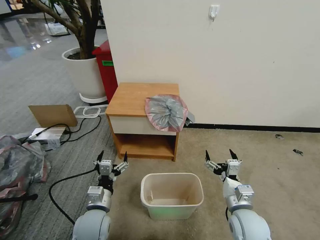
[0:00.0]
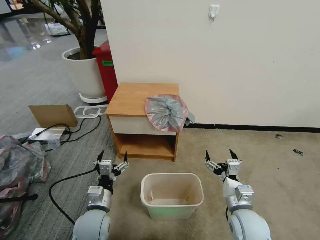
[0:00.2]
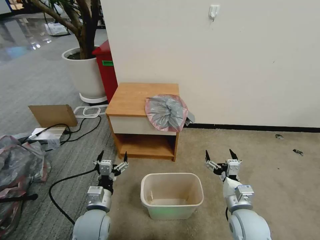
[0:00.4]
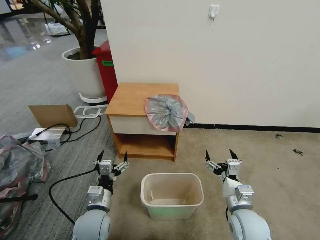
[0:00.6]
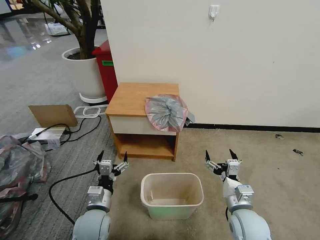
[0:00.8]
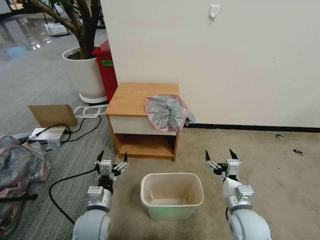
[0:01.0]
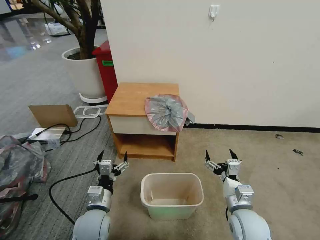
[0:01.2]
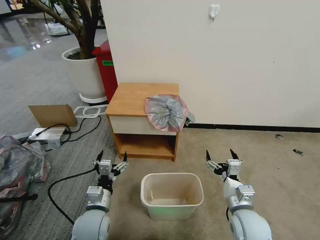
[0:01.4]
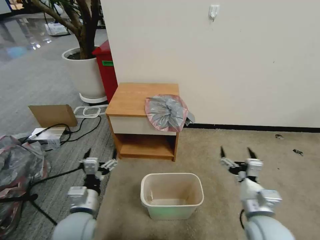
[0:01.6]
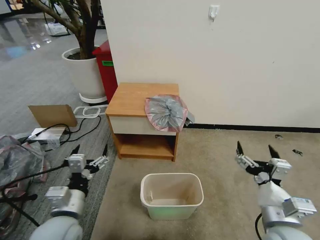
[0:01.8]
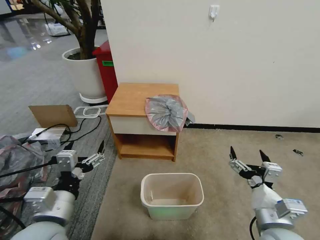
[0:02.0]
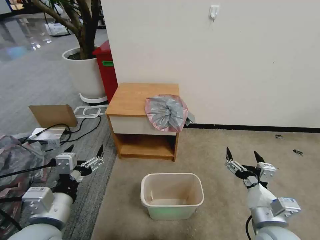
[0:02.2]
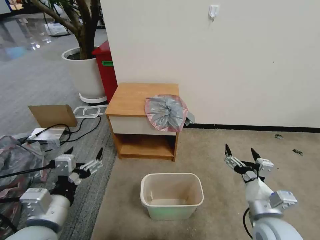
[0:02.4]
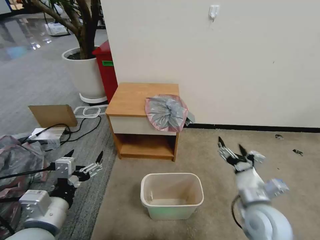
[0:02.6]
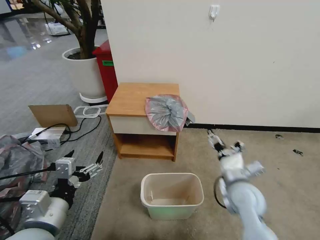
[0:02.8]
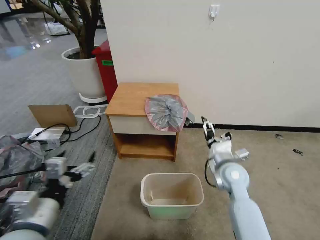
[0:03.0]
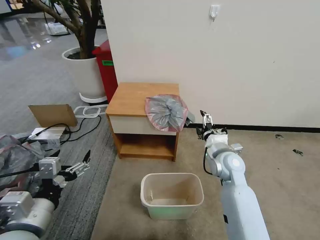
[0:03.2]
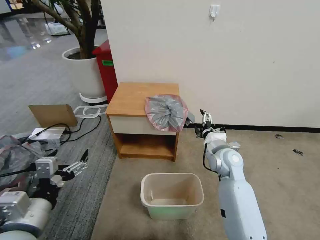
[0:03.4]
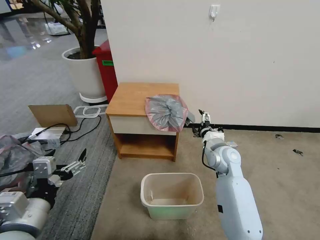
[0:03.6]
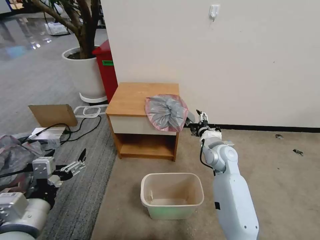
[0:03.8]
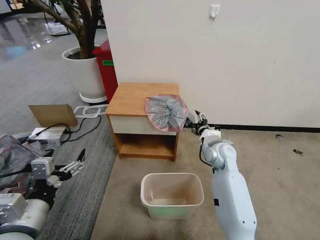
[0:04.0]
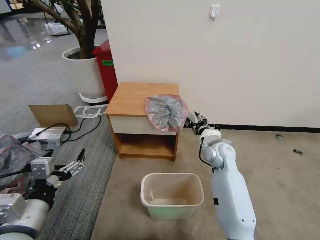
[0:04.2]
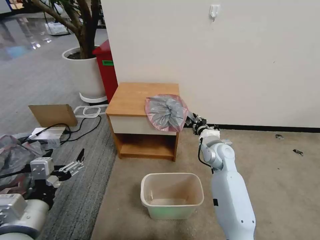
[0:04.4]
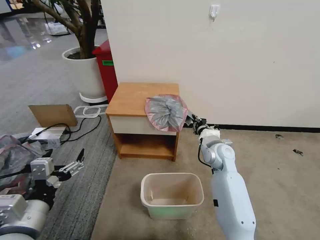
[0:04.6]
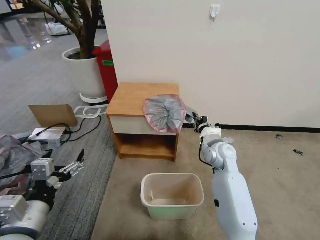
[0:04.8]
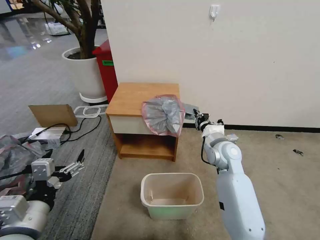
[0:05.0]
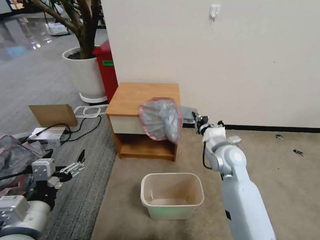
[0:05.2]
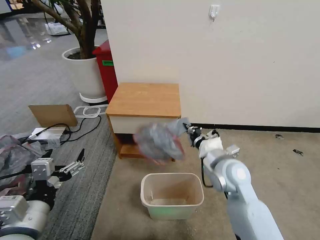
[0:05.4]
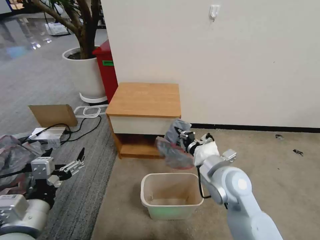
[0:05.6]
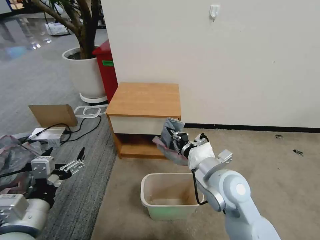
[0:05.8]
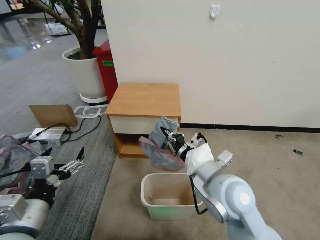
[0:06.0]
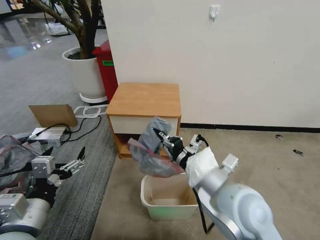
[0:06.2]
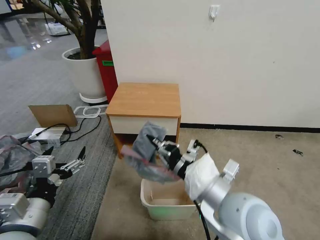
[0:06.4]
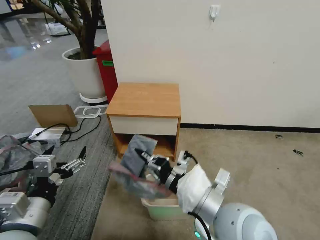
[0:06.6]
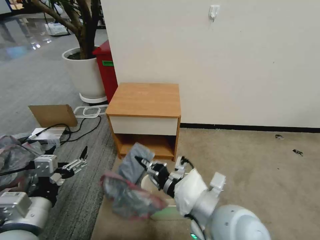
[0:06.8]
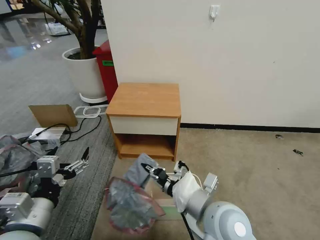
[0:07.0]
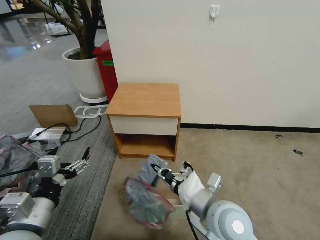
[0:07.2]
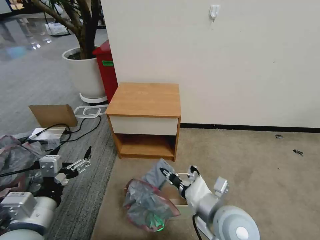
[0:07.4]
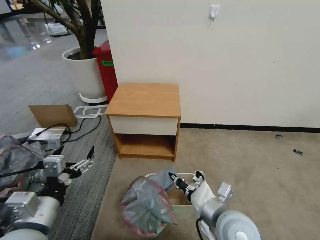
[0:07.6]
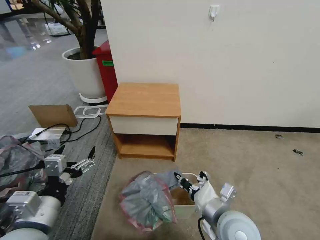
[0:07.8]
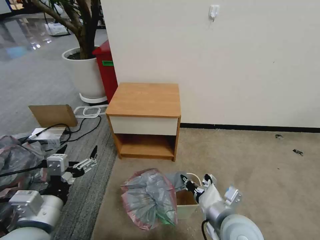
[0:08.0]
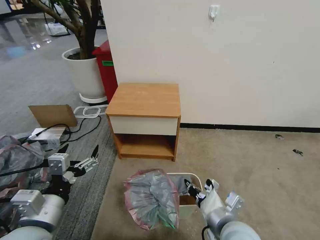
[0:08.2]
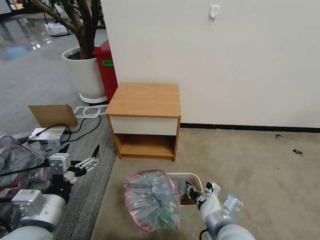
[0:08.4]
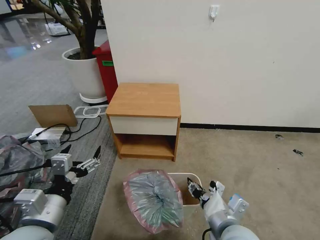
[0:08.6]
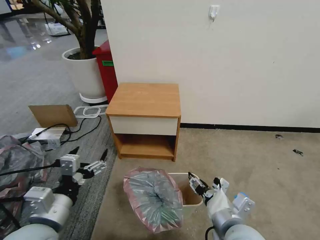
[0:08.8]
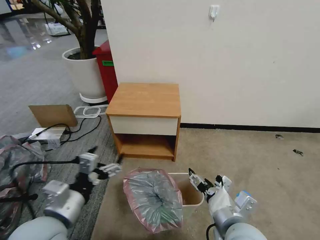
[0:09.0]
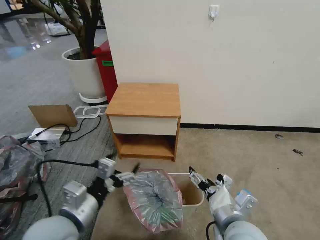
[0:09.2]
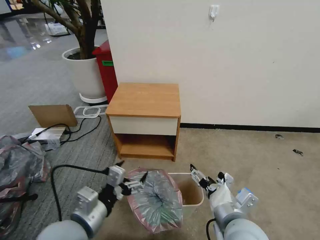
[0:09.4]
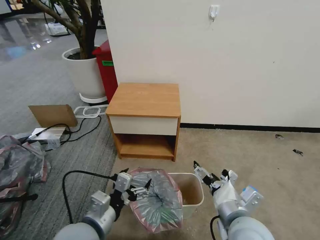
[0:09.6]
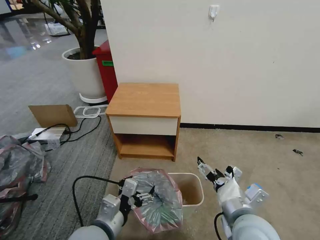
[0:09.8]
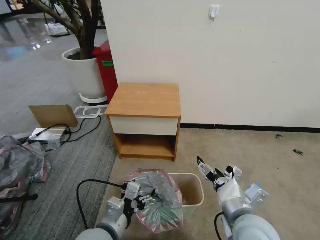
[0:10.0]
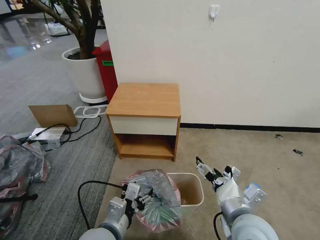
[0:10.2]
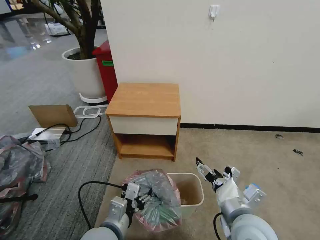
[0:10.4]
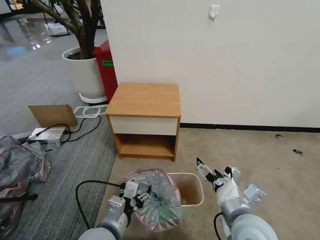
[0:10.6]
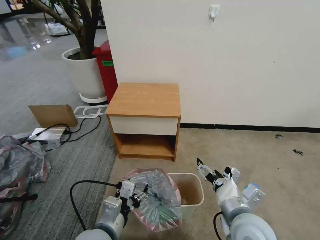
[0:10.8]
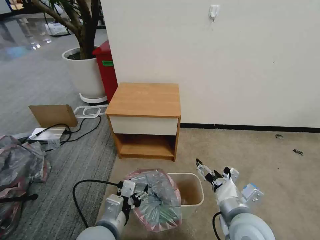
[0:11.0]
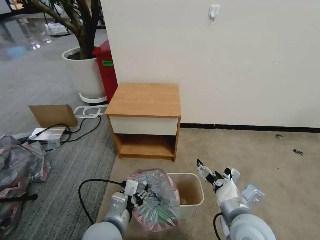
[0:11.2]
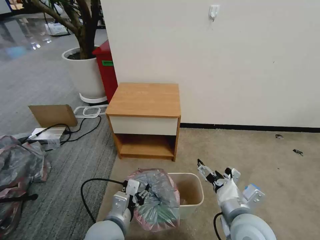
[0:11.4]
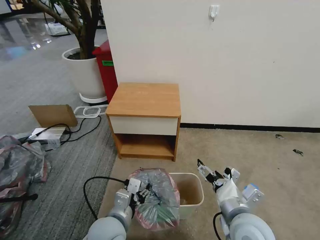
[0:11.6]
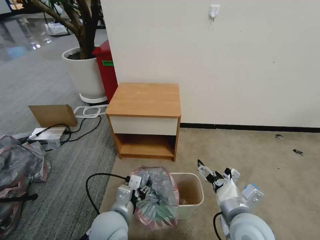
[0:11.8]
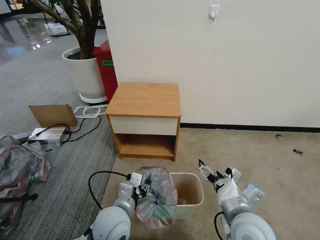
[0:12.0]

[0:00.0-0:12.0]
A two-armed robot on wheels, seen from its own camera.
Task of the whole recording: Pick up the garbage bag from the table and place it over the trash can.
0:01.6 to 0:03.0: The left gripper goes roughly 15 cm upward and backward. The right gripper heads forward, covering some 15 cm.
0:03.0 to 0:04.4: The right gripper moves forward, some 10 cm, and closes.
0:04.4 to 0:06.0: The right gripper goes approximately 20 cm backward and upward.
0:06.0 to 0:07.6: The right gripper goes roughly 10 cm downward and backward.
0:07.6 to 0:09.0: The right gripper opens its fingers.
0:09.0 to 0:10.4: The left gripper travels to the right and downward by about 15 cm.
0:10.4 to 0:12.0: The left gripper shifts roughly 5 cm forward.

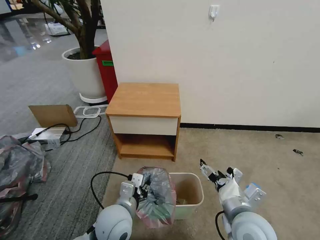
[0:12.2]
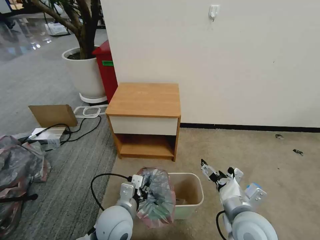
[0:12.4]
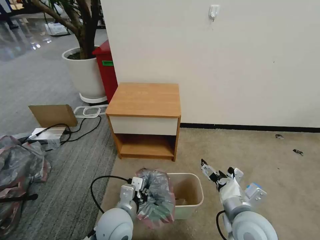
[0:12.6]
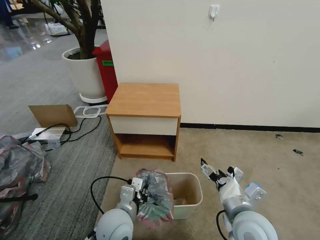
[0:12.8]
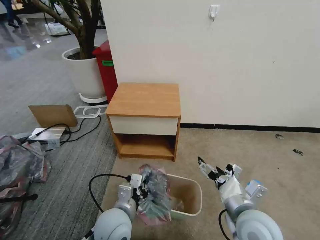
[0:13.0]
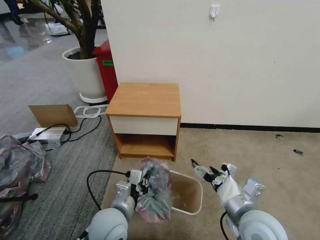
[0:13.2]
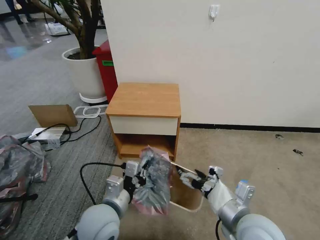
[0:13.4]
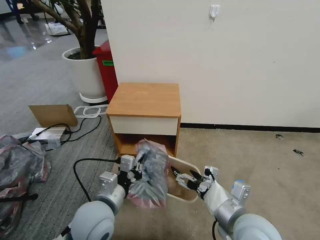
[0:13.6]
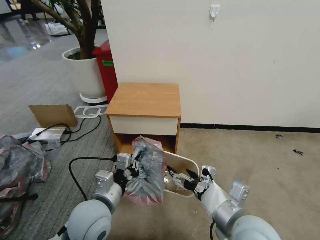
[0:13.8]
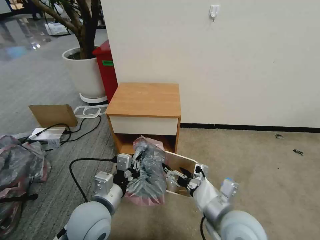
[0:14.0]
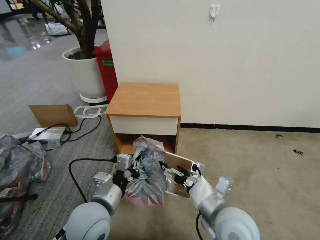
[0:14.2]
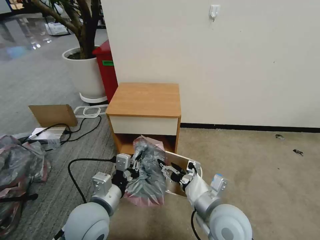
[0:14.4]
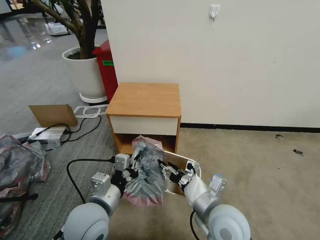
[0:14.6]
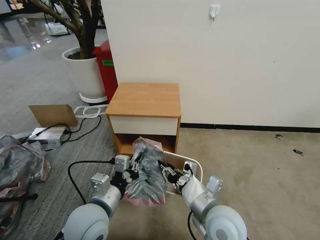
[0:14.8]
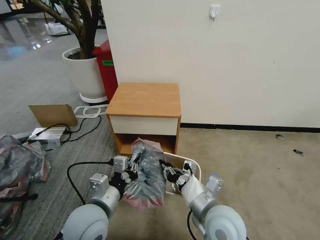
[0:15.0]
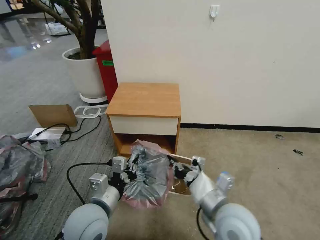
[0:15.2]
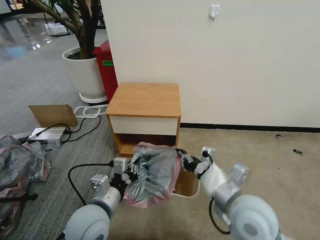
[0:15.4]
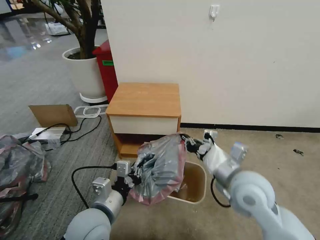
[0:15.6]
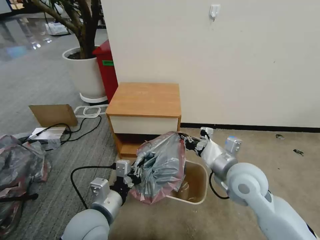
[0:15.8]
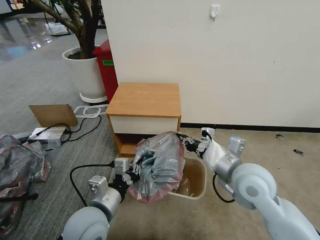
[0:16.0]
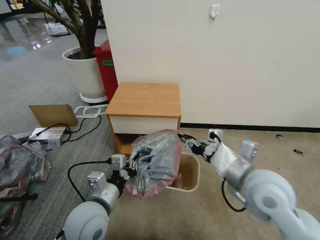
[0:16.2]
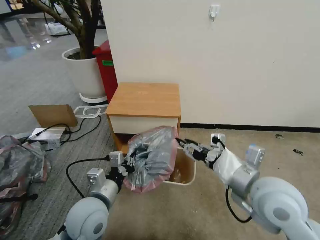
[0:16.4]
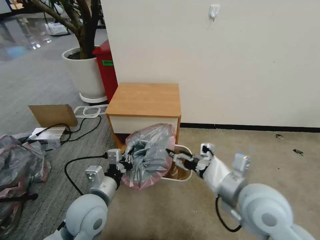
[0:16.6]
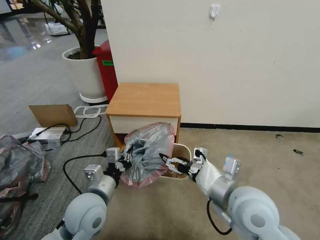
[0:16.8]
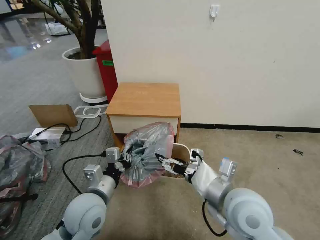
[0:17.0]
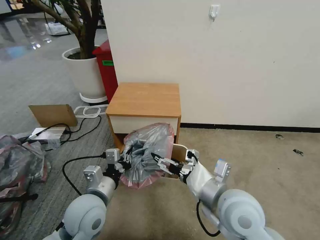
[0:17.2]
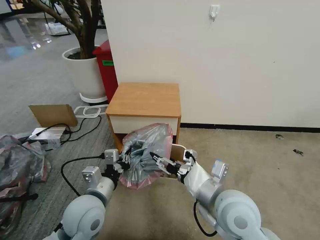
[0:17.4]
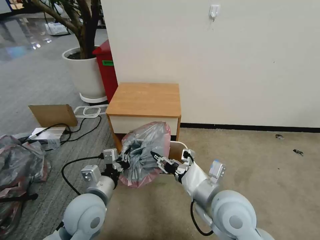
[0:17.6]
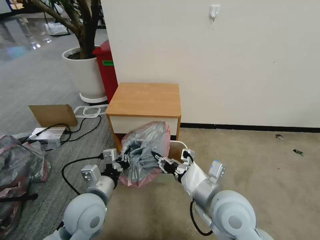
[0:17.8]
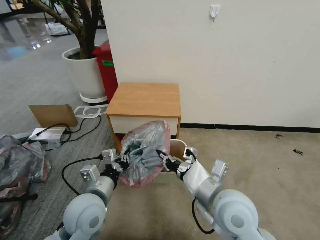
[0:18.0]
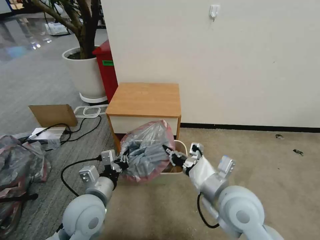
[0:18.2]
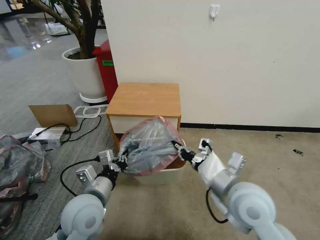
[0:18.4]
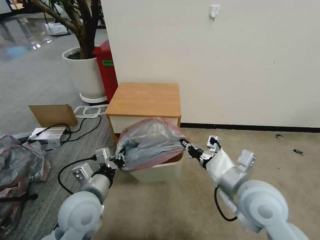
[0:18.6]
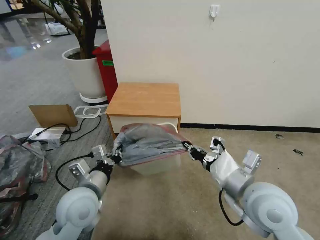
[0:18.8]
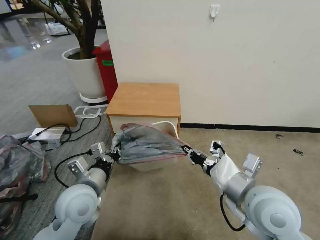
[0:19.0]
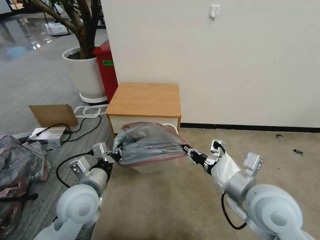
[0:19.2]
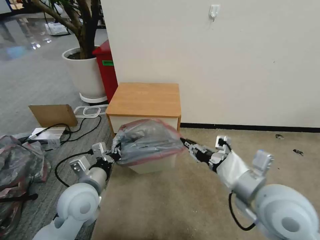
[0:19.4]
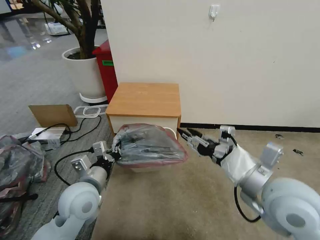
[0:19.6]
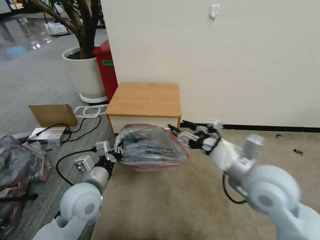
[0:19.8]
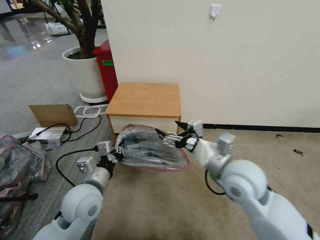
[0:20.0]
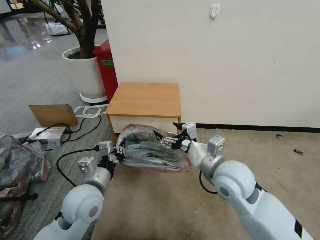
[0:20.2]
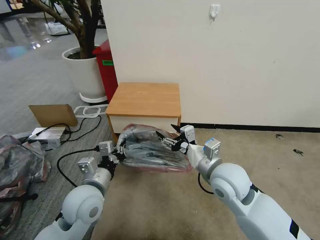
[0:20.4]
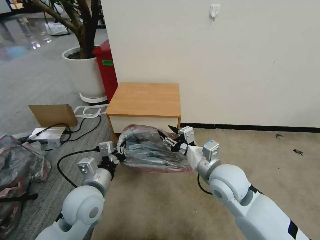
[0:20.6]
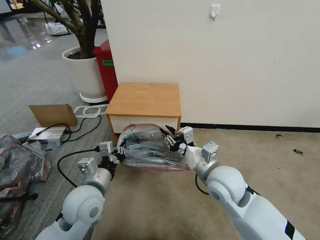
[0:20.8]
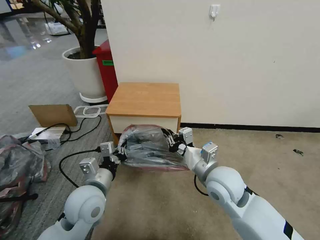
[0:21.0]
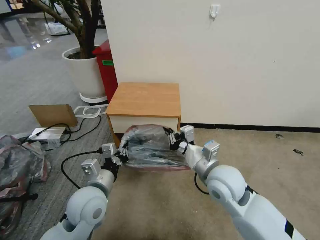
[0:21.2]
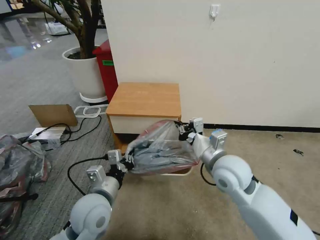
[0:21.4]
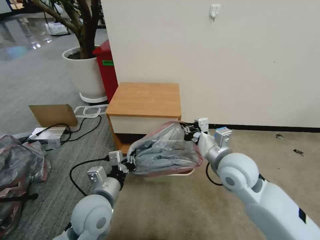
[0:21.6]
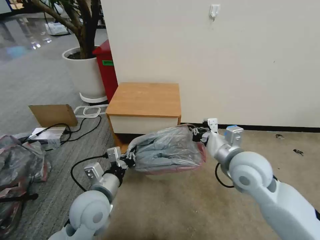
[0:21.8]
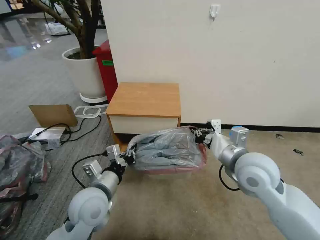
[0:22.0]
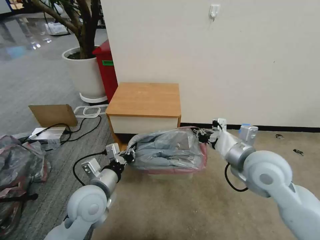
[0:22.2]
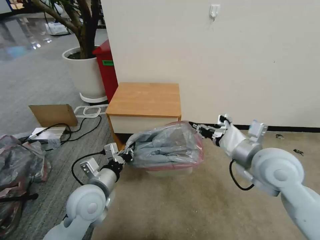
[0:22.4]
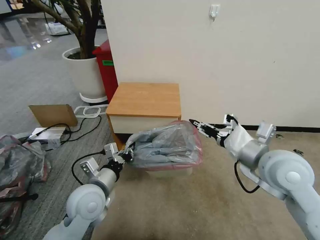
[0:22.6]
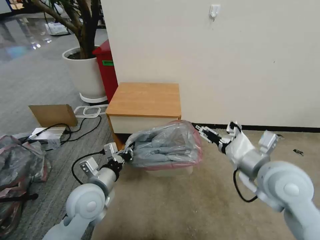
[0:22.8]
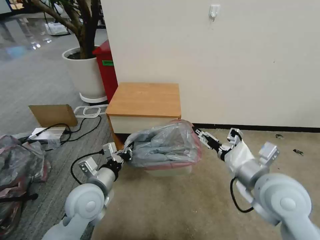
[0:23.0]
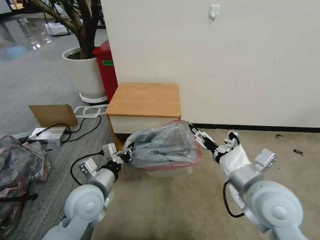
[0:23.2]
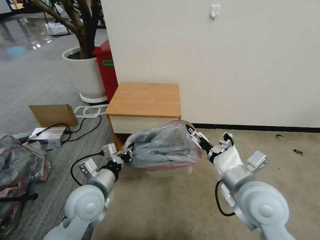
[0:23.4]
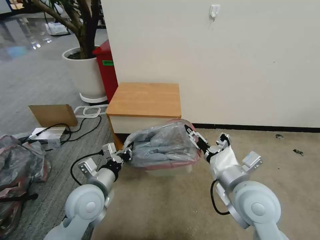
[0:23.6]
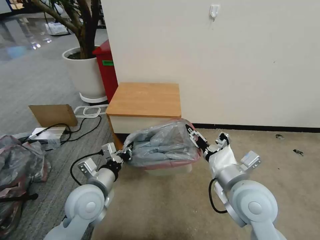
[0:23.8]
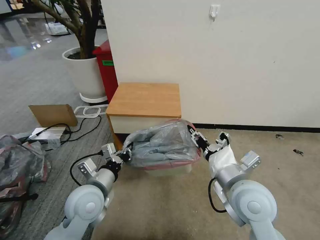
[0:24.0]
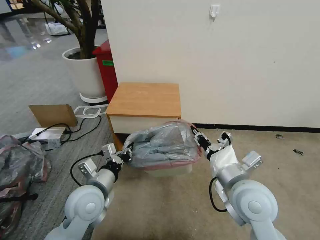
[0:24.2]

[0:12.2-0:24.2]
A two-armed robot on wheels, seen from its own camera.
Task of the whole recording: Pick up the garbage bag from the table and place it over the trash can.
0:12.2 to 0:13.8: The right gripper shifts by roughly 5 cm; the left gripper goes roughly 5 cm upward, and closes up.
0:13.8 to 0:15.2: The right gripper closes.
0:15.2 to 0:16.6: The right gripper heads upward, covering some 5 cm, reaches about 10 cm forward, then returns, and opens its fingers.
0:16.6 to 0:18.2: The right gripper closes.
0:18.2 to 0:19.8: The right gripper shifts roughly 10 cm upward and to the right, and opens up.
0:19.8 to 0:21.2: The right gripper travels downward and to the left by roughly 10 cm, and closes.
0:21.2 to 0:22.6: The right gripper moves to the right and upward, roughly 15 cm.
0:22.6 to 0:24.2: The right gripper goes some 10 cm to the left and downward, and opens, then closes once more.
